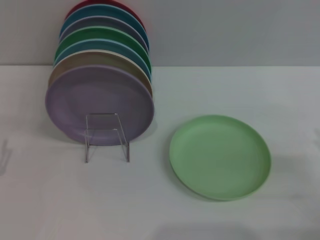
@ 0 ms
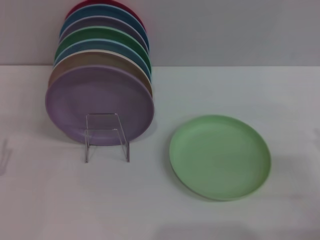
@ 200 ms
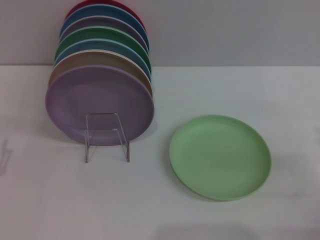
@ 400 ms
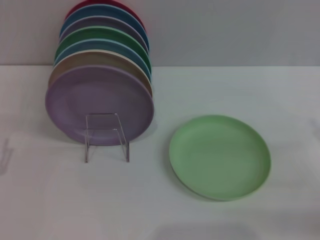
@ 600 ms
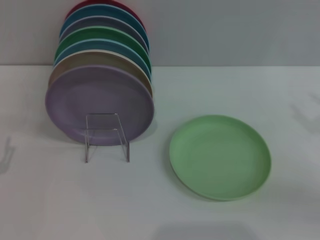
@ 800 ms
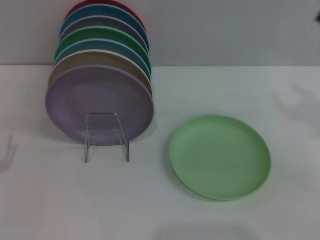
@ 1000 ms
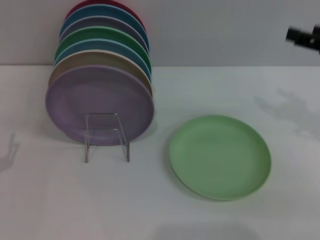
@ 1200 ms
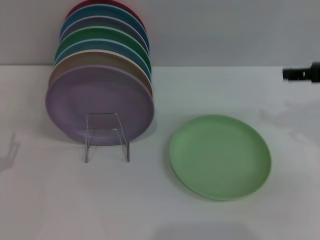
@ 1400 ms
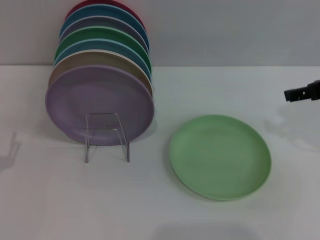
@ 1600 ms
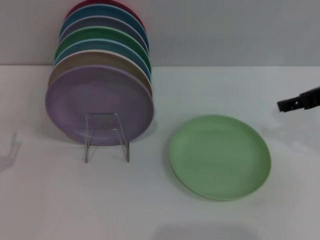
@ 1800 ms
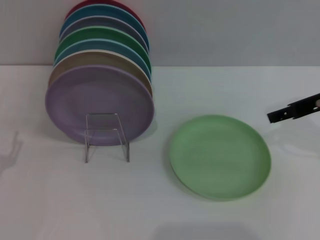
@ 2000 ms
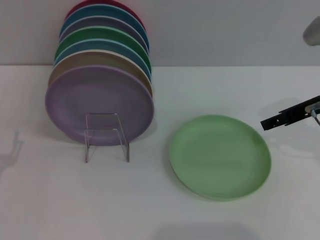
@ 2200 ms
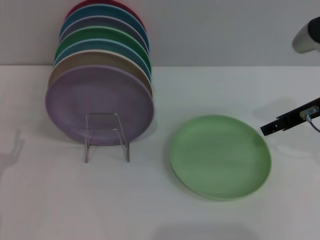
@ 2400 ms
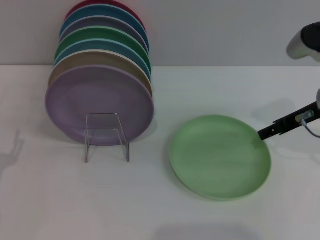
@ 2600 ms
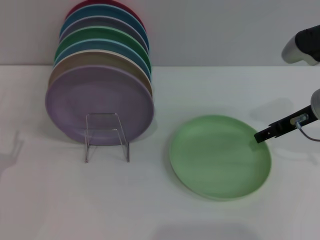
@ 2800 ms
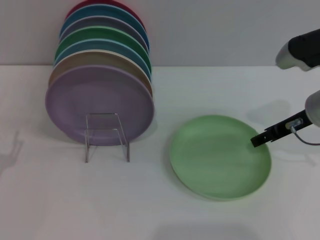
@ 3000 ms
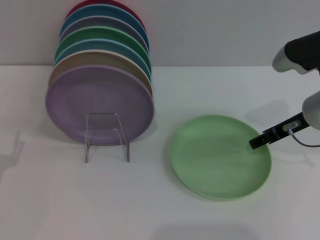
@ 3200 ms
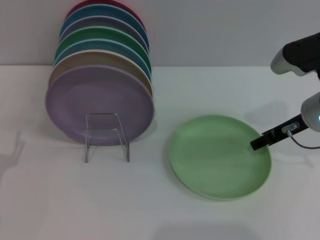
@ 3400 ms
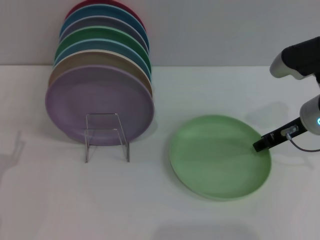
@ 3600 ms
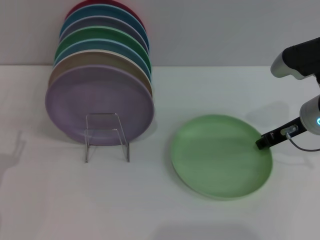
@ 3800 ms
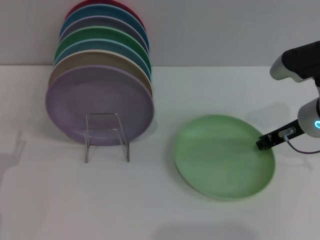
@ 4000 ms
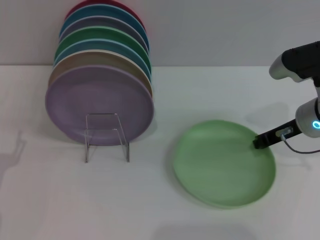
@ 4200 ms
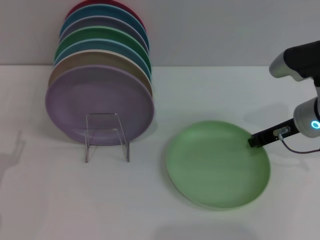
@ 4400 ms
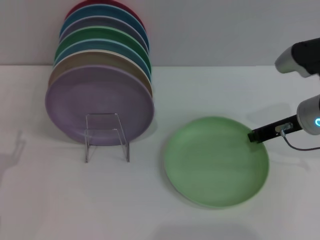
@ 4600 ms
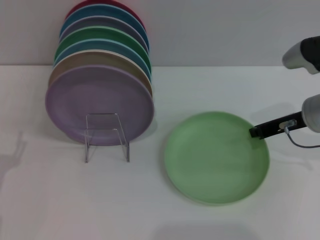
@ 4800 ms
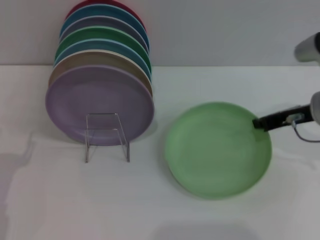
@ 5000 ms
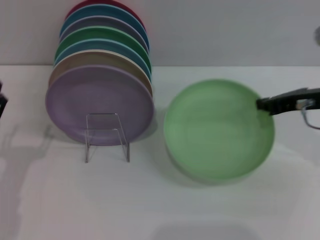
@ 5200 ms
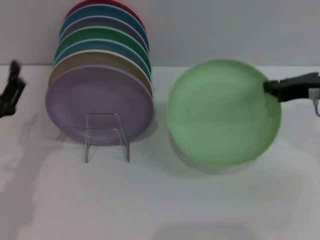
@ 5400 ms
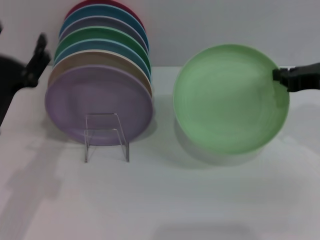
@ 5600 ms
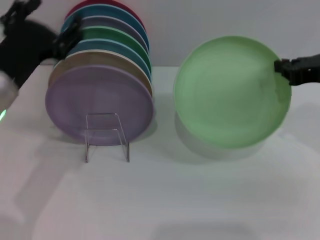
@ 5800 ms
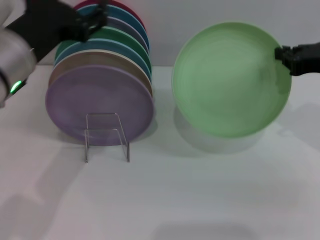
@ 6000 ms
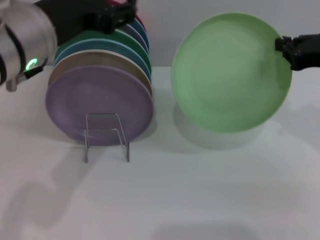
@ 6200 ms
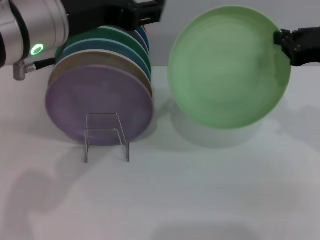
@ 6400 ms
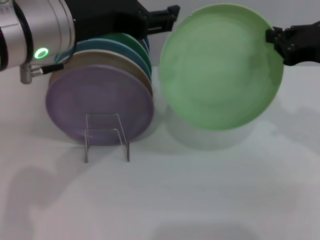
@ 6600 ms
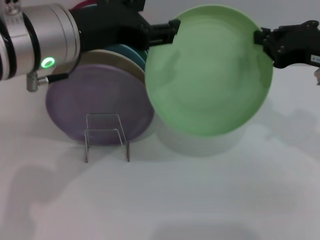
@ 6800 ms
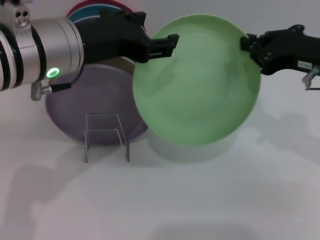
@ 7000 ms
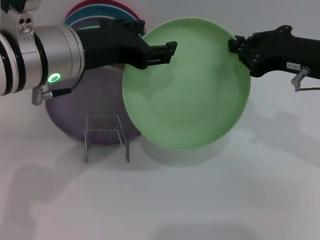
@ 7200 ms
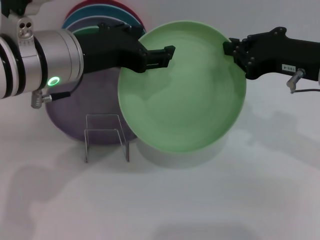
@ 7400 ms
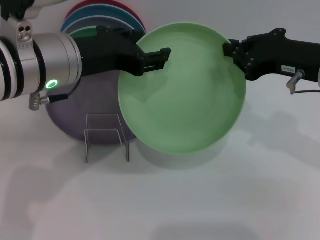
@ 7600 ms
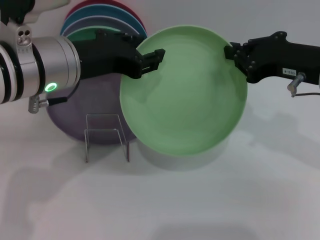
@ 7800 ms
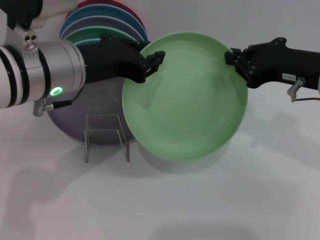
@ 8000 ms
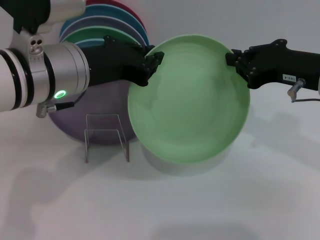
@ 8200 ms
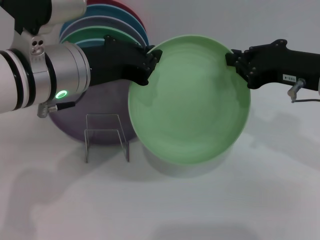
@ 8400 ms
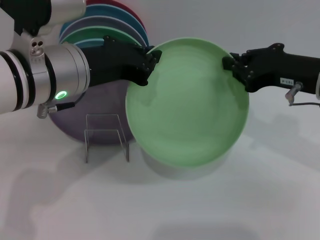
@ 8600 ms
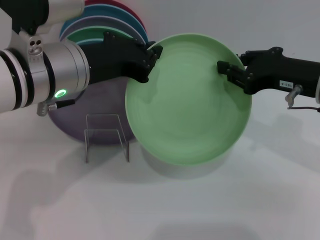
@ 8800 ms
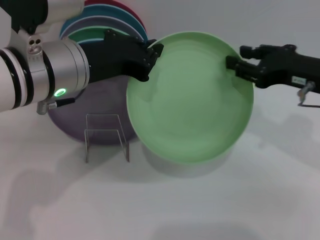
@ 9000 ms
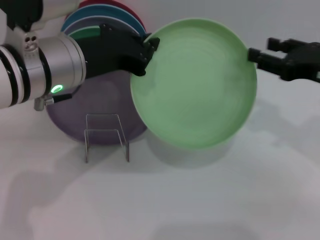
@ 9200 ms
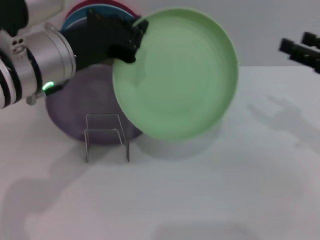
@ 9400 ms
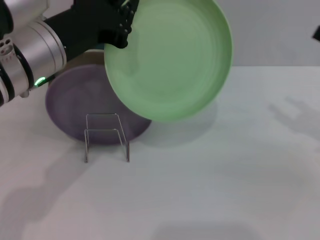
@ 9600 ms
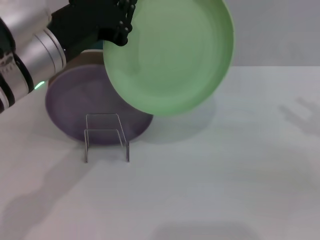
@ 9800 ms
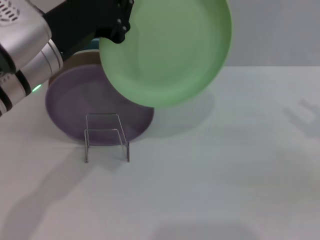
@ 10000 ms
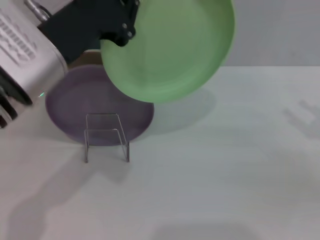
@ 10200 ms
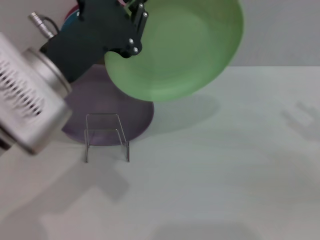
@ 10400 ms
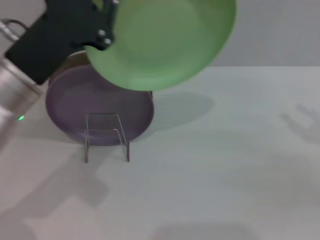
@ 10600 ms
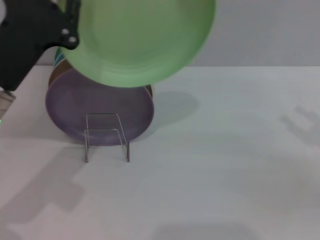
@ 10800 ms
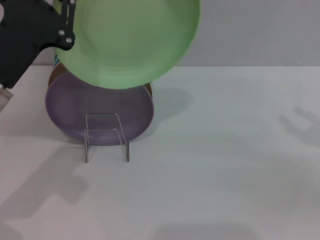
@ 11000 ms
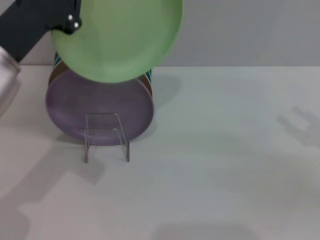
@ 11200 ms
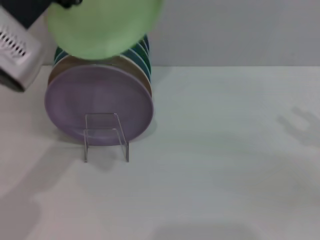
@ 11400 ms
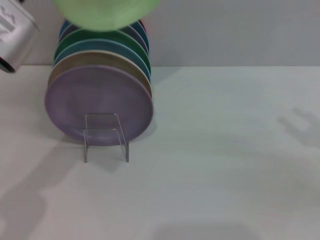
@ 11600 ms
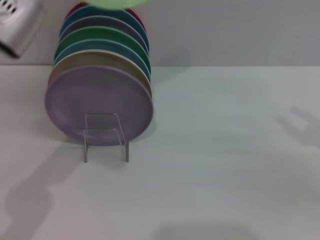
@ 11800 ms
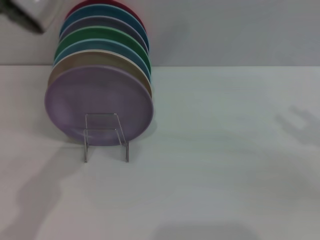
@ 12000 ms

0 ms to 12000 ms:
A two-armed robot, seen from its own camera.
Task of the whole recording: Grip the plate with one hand, pass it to the other, then set it on the shelf.
Step, 0 ms to 4800 ms: Pick up the plate with the right gripper.
Step, 5000 ms to 9600 ms: Pass the plate from the right gripper to the left gripper.
0 ms to 1600 ms: The right gripper moves upward and forward, roughly 20 cm.
1600 ms to 3000 ms: The right gripper is displaced downward by some 10 cm.
3000 ms to 4400 ms: The right gripper closes.
4400 ms to 6000 ms: The right gripper heads upward, covering about 10 cm; the left gripper goes about 25 cm upward, to the right and forward.
6000 ms to 7600 ms: The right gripper is displaced to the left by roughly 5 cm.
7600 ms to 9000 ms: The left gripper closes its fingers.
9000 ms to 10400 ms: The right gripper moves to the right and backward, about 15 cm, and opens its fingers.
10400 ms to 12000 ms: The left gripper goes some 10 cm upward.

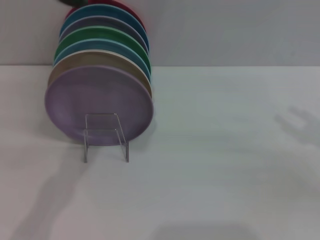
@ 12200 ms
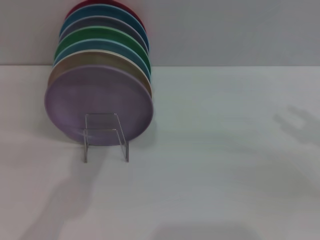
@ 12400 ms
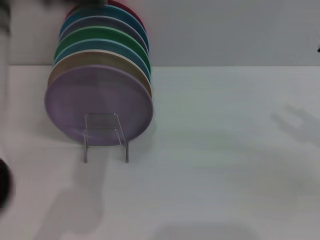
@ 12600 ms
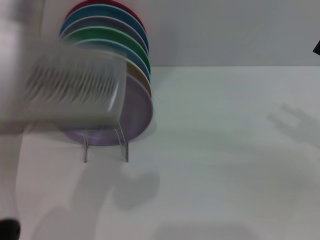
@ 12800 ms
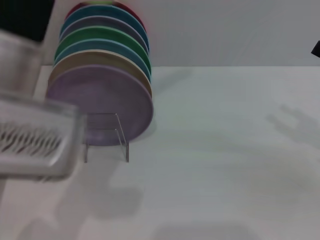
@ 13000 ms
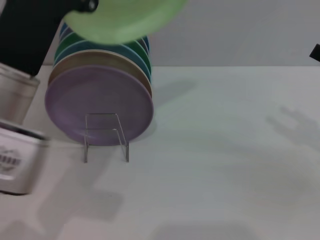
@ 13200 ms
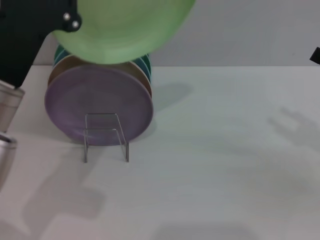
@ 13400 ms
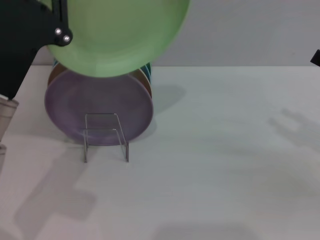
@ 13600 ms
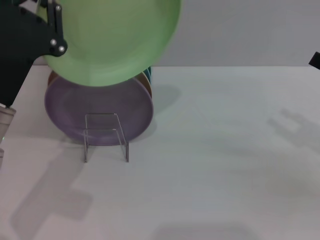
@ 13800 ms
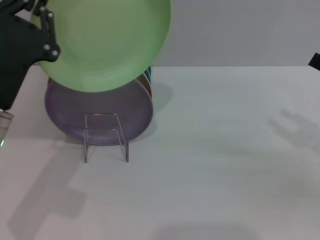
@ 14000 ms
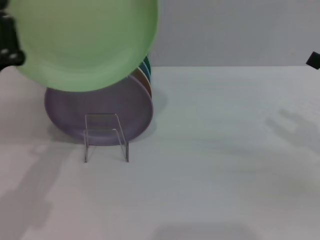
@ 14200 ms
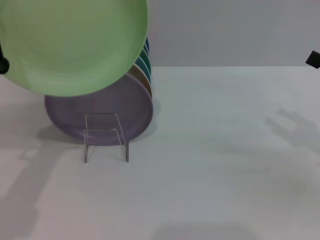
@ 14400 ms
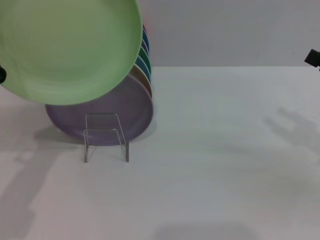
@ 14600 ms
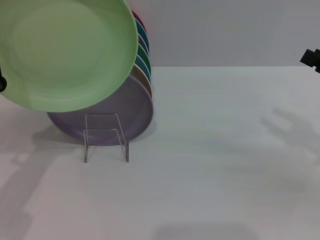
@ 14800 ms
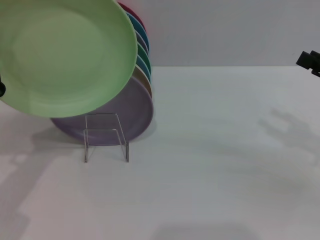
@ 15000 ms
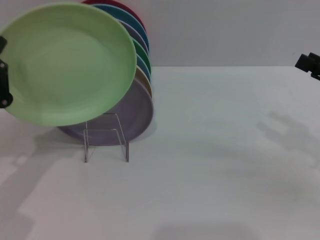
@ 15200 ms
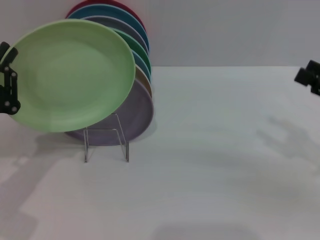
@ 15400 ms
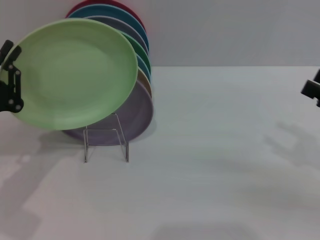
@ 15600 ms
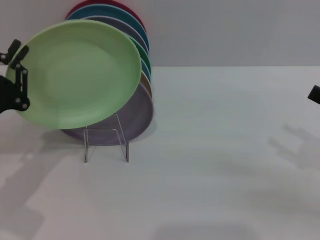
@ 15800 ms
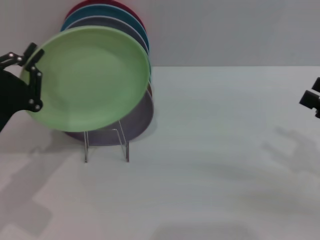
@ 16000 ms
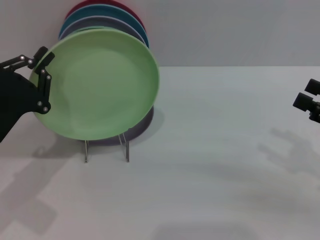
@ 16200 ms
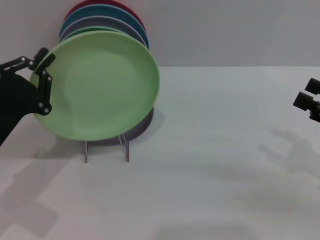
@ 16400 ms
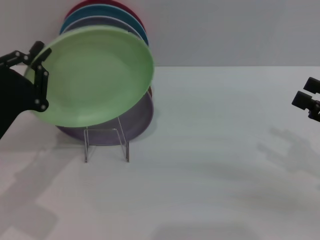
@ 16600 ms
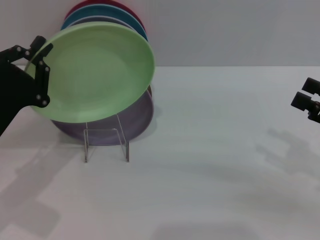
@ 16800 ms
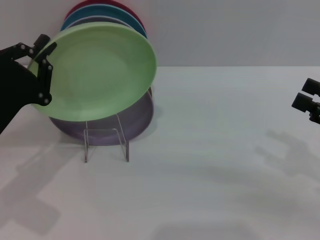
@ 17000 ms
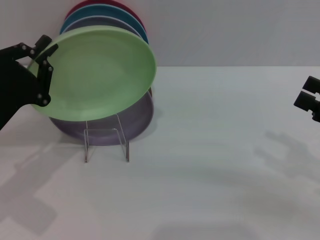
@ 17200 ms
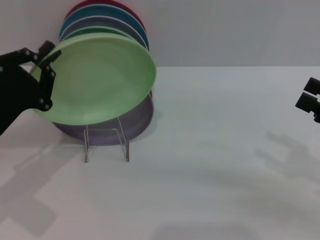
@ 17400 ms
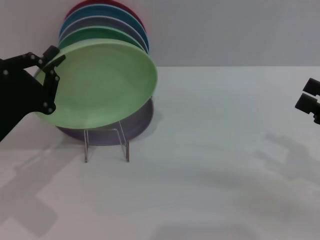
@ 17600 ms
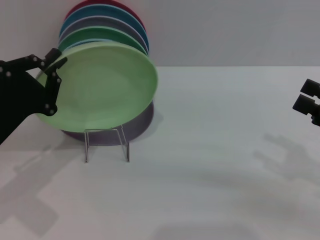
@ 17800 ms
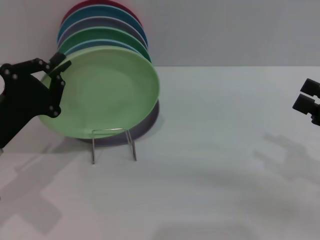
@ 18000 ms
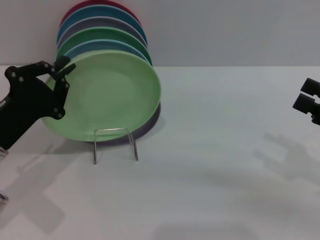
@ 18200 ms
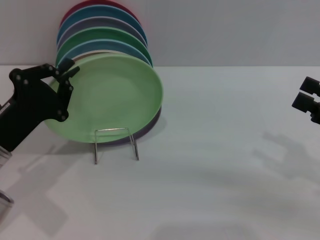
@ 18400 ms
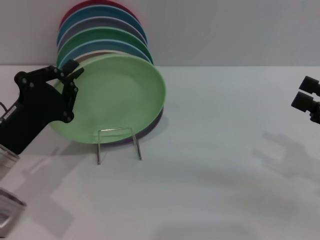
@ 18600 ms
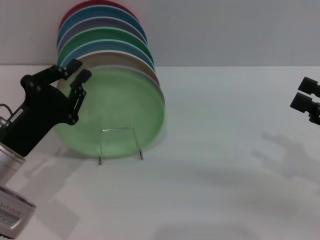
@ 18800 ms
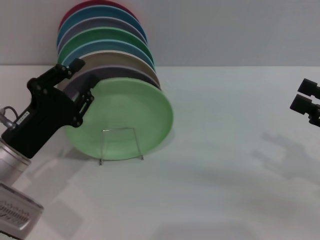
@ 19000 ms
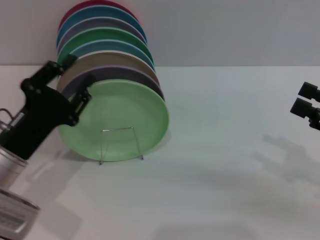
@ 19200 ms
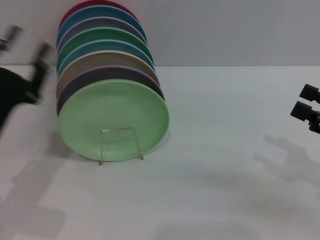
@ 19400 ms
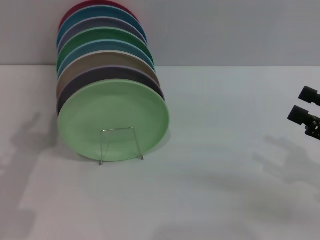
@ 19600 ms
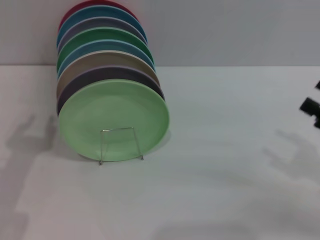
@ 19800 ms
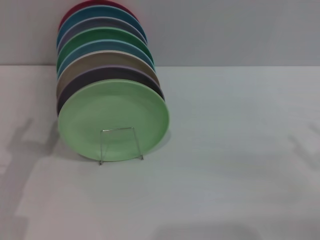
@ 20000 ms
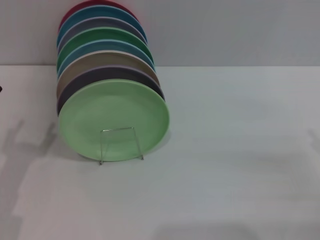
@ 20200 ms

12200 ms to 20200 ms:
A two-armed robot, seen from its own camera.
Task of the whole recording: Grip the plate with one hand, pass it to the other, then set it on the shelf.
Step, 12200 ms to 19200 ms: Place the plate on the shelf with the left gripper.
12200 ms to 13800 ms: The left gripper heads downward, covering about 20 cm.
13800 ms to 15400 ms: The left gripper is displaced to the left and downward by some 10 cm.
15400 ms to 17000 ms: There are only small adjustments of the grippers.
17000 ms to 18600 ms: There are only small adjustments of the grippers.
18600 ms to 20200 ms: The right gripper goes roughly 5 cm downward. Meanwhile the left gripper moves some 5 cm, and opens.
